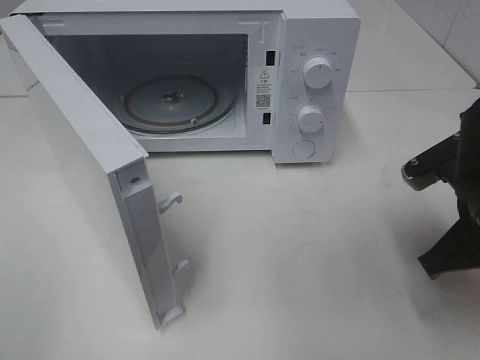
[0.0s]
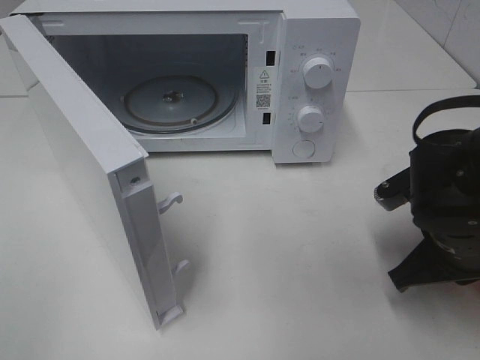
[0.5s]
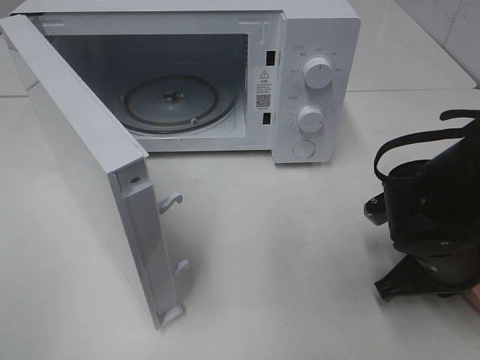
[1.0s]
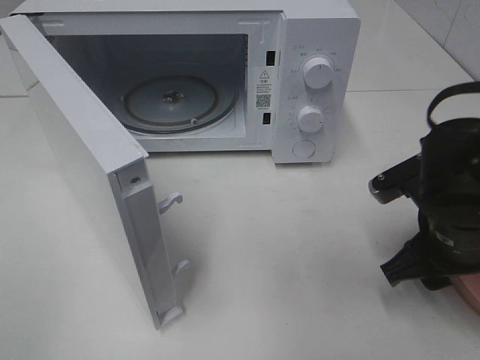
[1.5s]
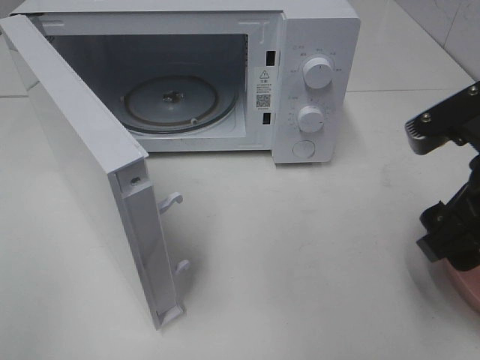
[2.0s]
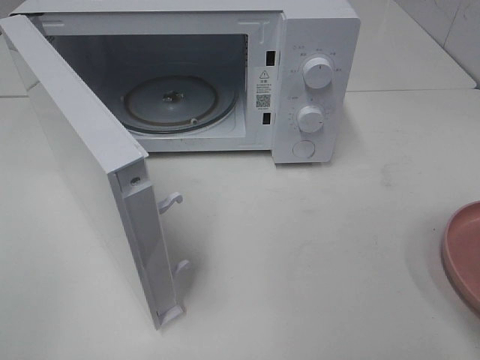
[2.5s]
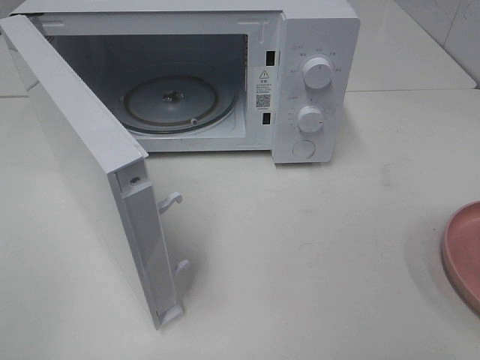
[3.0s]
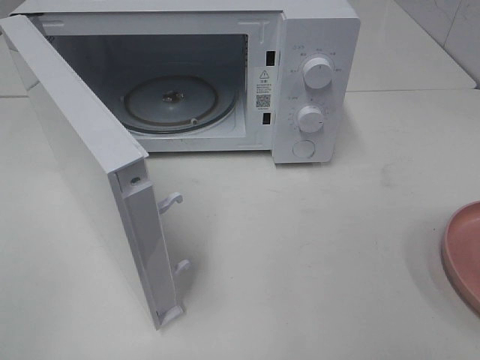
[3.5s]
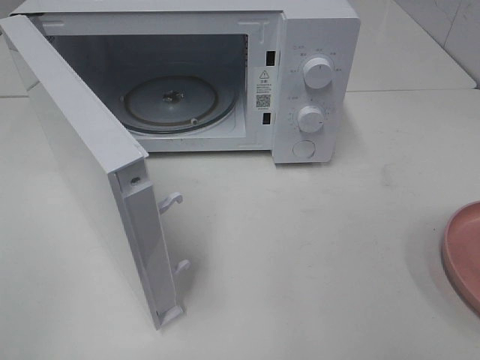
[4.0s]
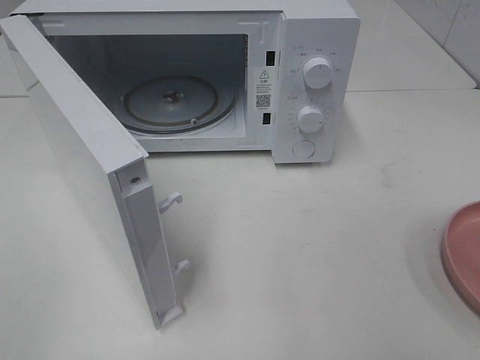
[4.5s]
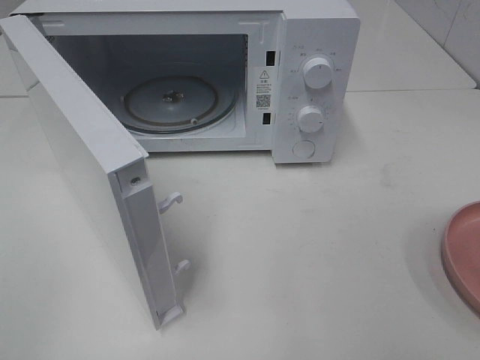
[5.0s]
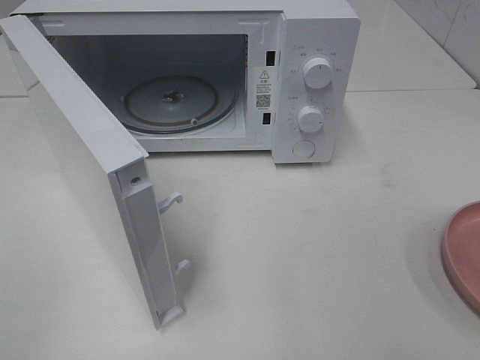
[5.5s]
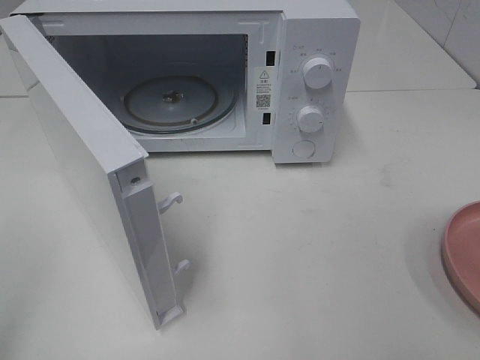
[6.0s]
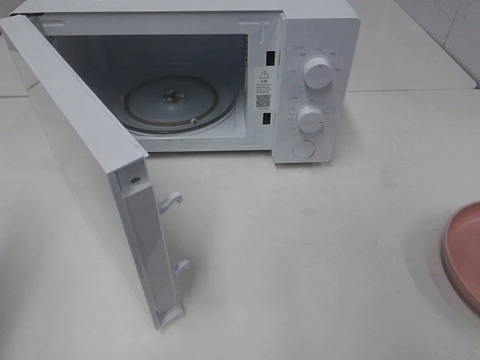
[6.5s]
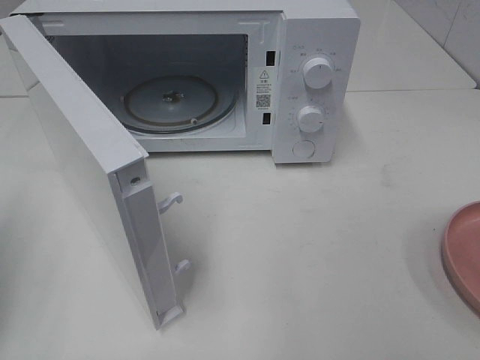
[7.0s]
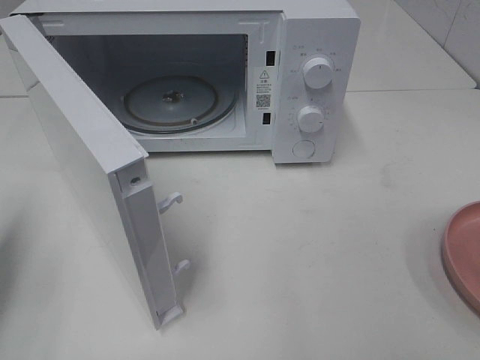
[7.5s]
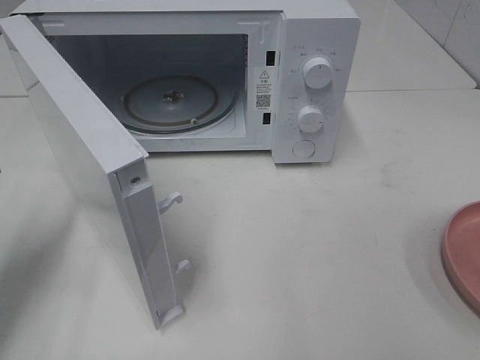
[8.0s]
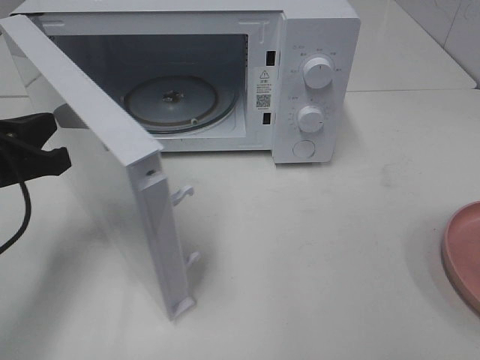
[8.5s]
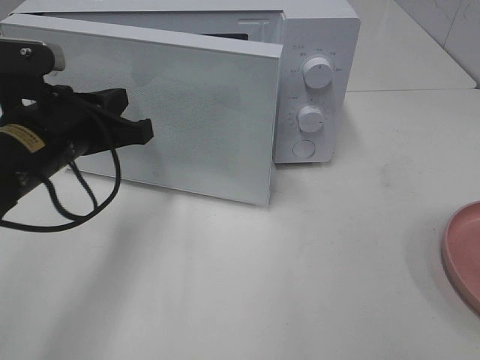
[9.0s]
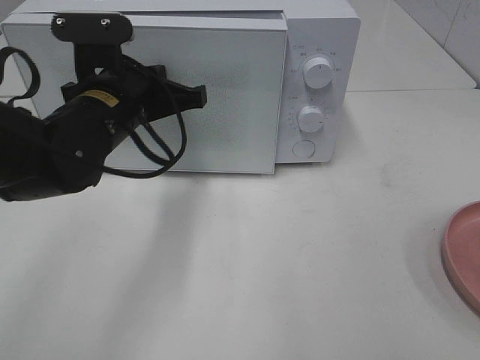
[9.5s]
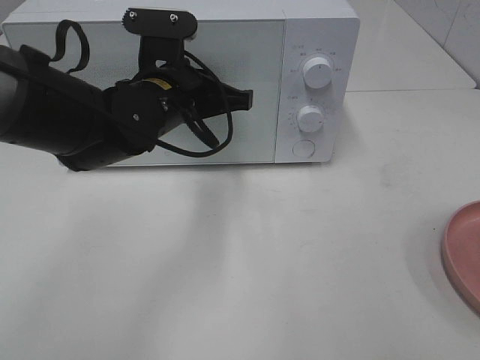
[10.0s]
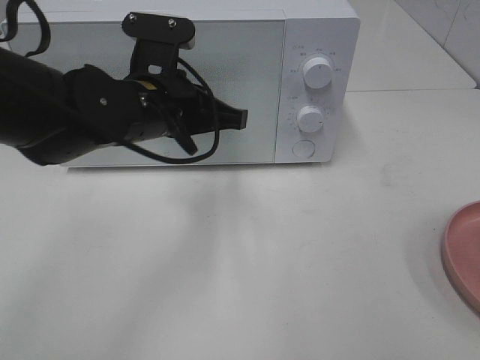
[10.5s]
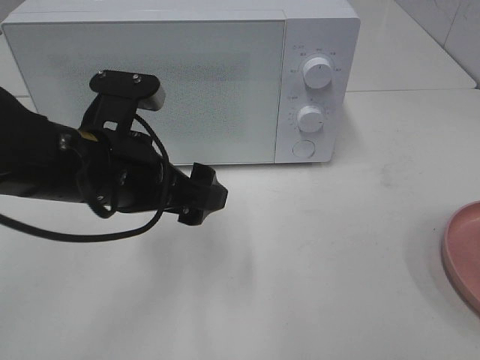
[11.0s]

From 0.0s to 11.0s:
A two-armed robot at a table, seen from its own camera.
Task of the whole recording: Heat the burger.
Step, from 2.0s to 10.5s: Left hand: close the microwave door.
From 0.0s to 2.0s: The right gripper moves upward, about 5 cm, and opens.
From 2.0s to 3.5s: The right gripper heads backward and to the right, covering some 15 cm.
From 5.5s to 7.5s: The left gripper is displaced forward and downward by approximately 20 cm, and closes its fingers.
From 7.5s to 9.0s: The left gripper heads to the right and forward, covering about 20 cm.
From 9.0s to 11.0s: The left gripper is displaced to the right by approximately 5 cm, and opens its fingers.

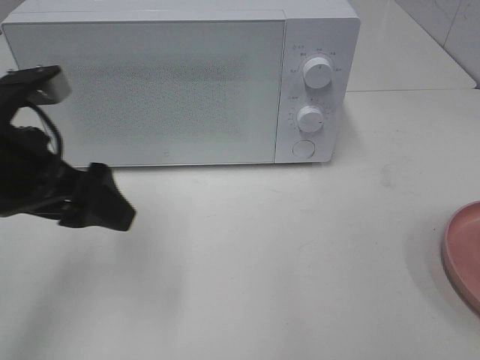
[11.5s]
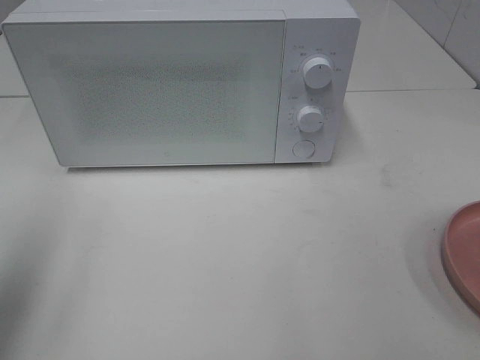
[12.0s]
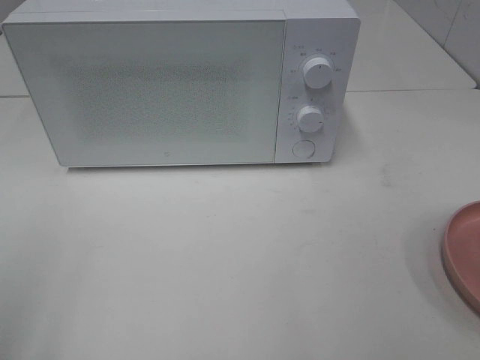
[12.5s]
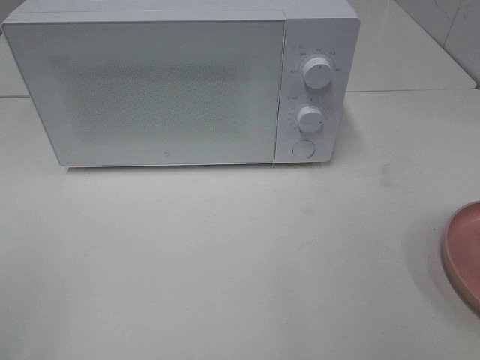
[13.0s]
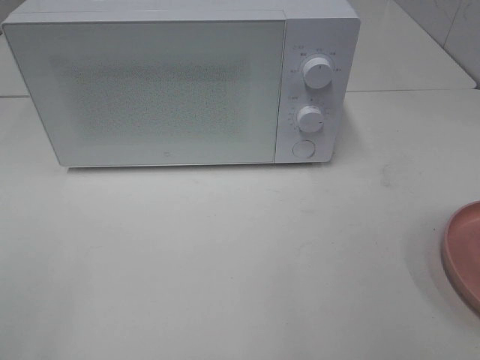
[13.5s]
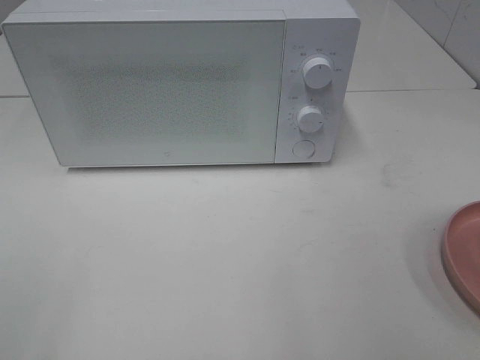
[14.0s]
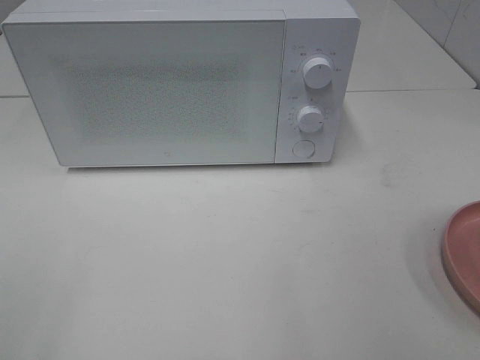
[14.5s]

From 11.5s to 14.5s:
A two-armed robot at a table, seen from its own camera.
Task of the whole recording: Heat the burger.
From 11.5s to 13.0s: The left gripper heads backward and to the left, covering approximately 25 cm.
From 13.0s to 14.5s: Both grippers stay about where they are.

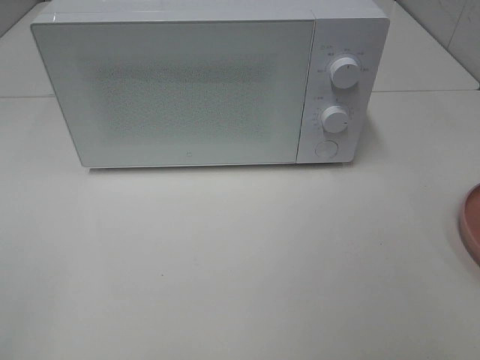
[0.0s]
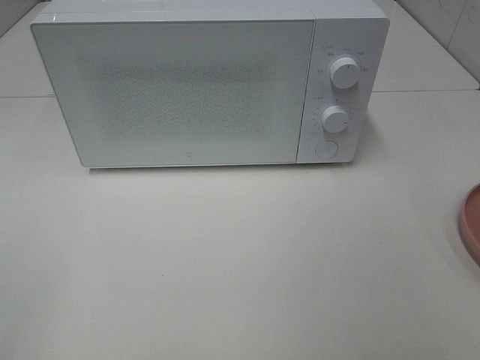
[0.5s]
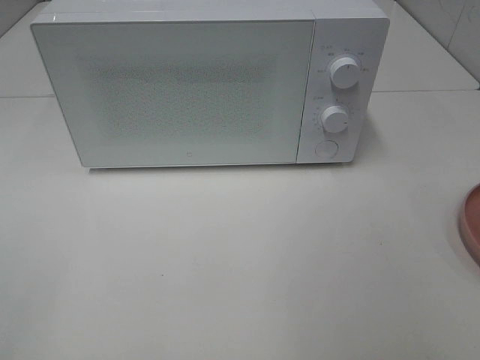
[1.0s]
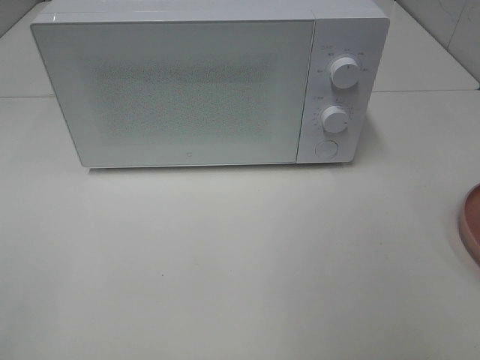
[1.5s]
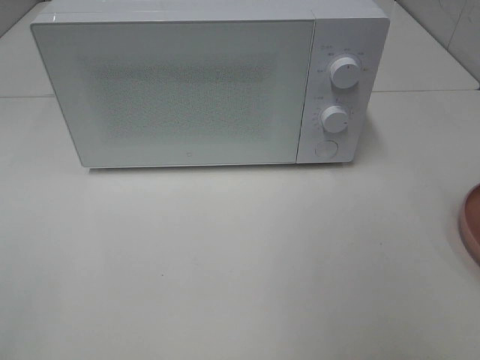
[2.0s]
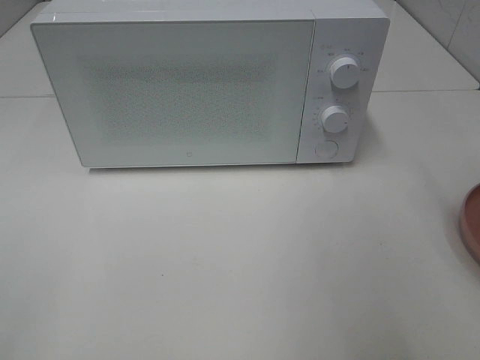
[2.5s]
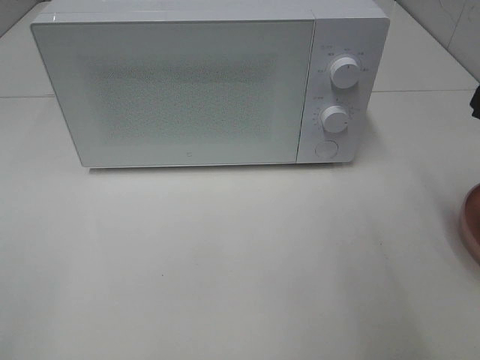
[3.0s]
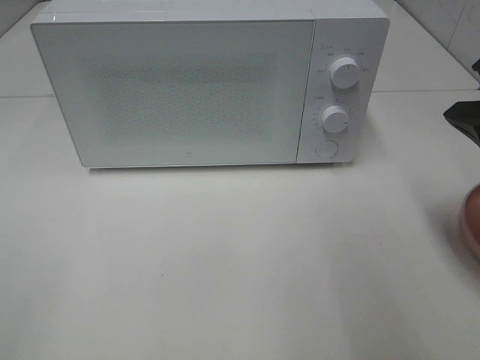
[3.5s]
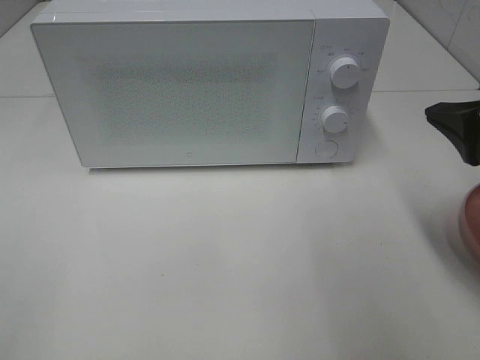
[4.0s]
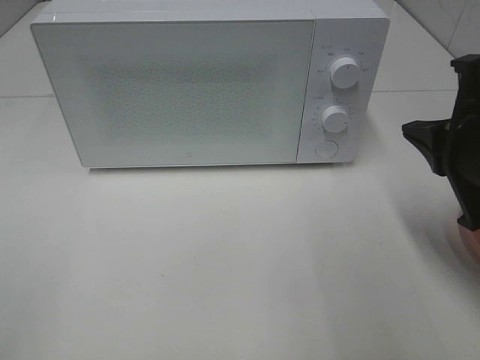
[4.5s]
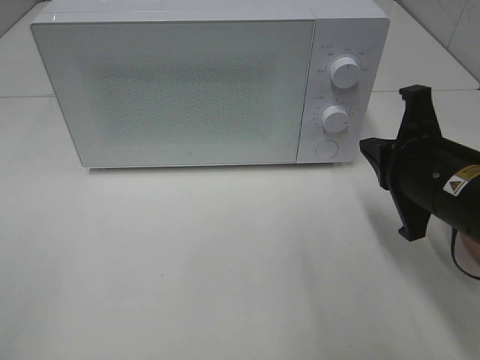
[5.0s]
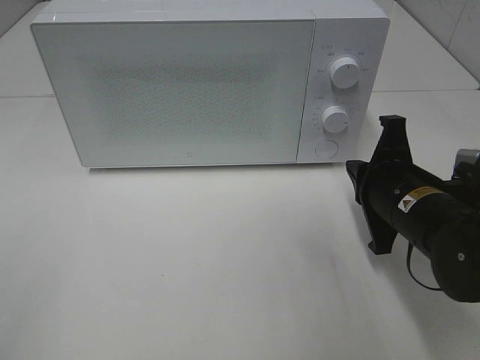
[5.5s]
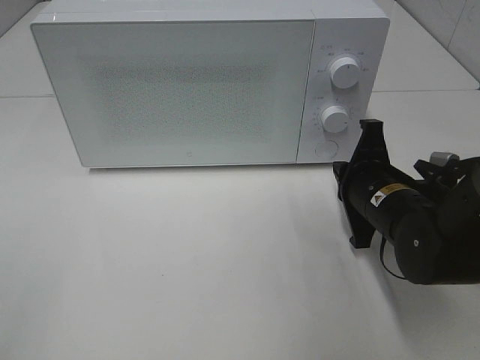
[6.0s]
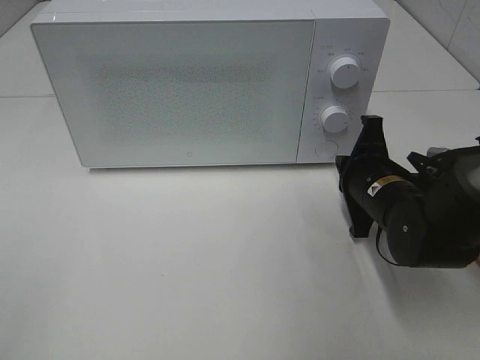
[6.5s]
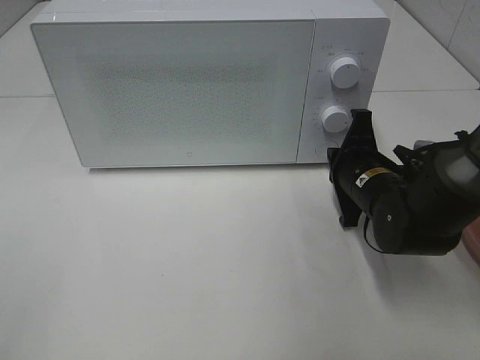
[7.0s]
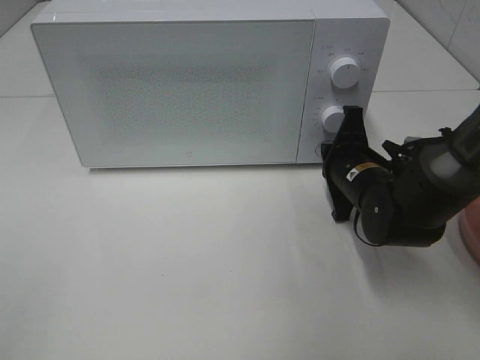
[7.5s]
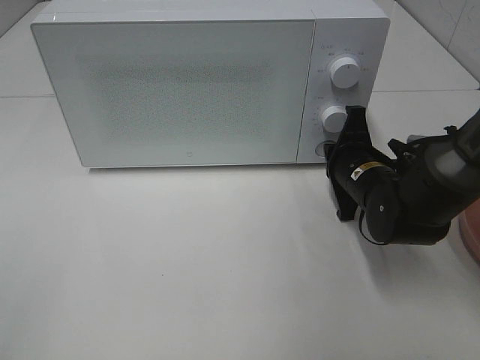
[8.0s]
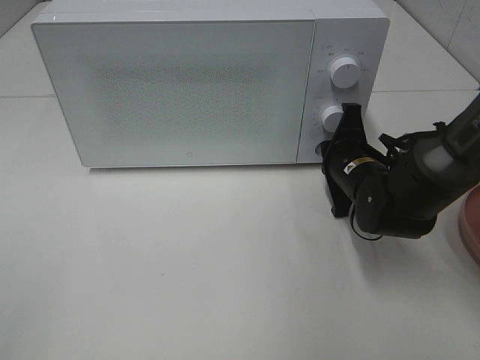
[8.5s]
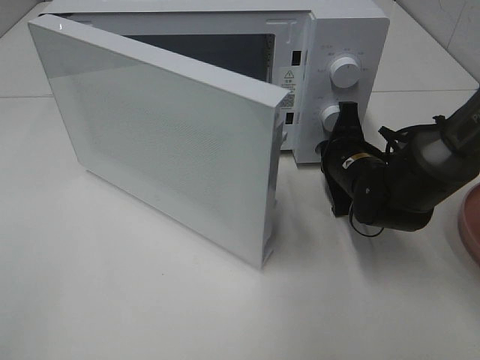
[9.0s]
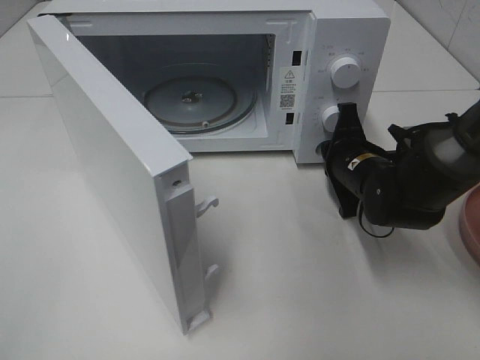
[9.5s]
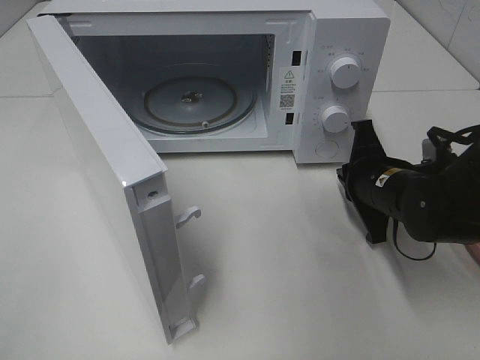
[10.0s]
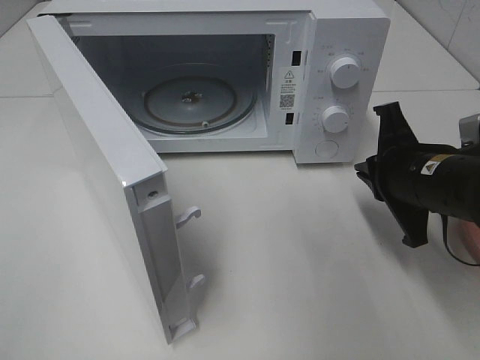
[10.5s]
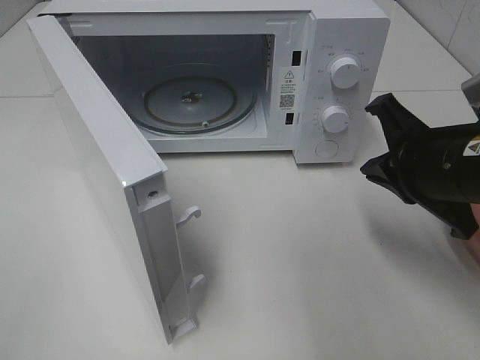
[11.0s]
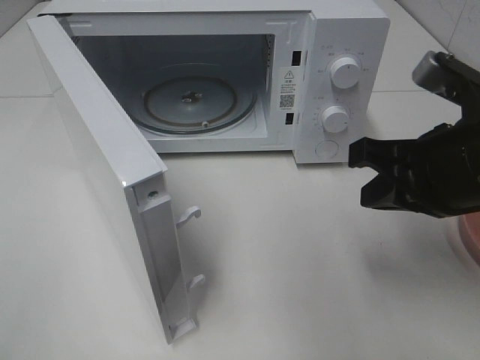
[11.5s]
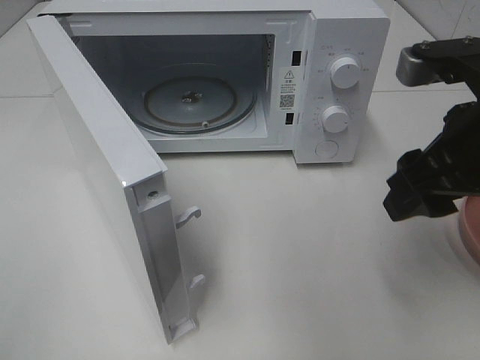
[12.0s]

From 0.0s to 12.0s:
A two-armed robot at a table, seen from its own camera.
Task of the whole recording: Heat the burger.
Step, from 0.0s to 9.5s: Right hand: press the switch.
From 2.0s to 4.0s: The right gripper goes about 10 cm downward and forward, and closes up.
From 4.0s to 6.0s: The right gripper travels downward, forward and to the left by some 20 cm.
From 6.0s to 8.0s: The right gripper travels forward by approximately 5 cm.
From 10.0s to 12.0s: The right gripper shifts some 20 cm upward and backward, and opens its fingers.
